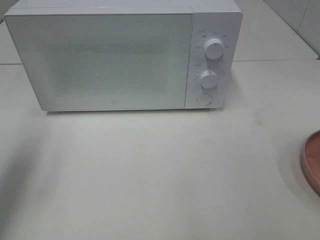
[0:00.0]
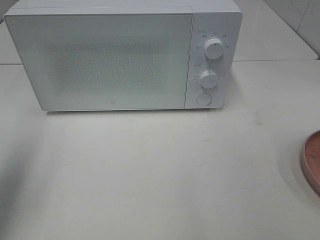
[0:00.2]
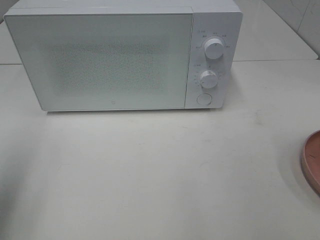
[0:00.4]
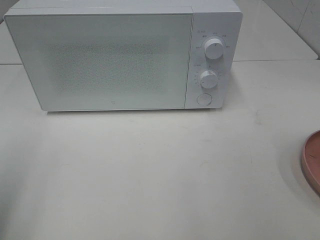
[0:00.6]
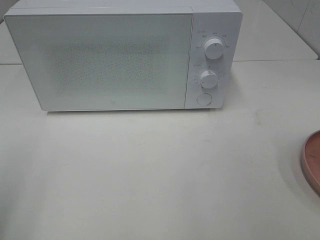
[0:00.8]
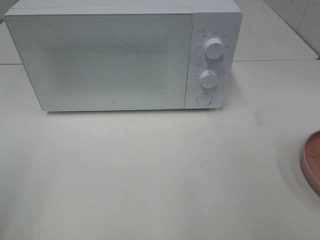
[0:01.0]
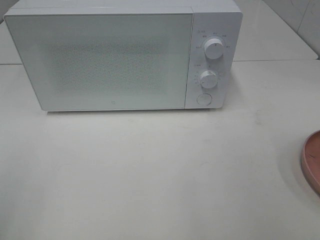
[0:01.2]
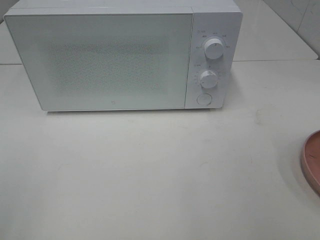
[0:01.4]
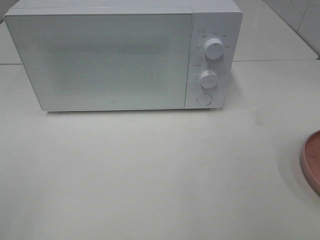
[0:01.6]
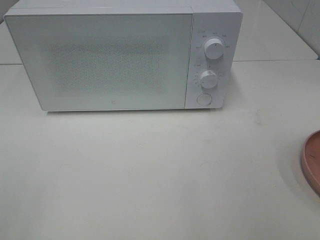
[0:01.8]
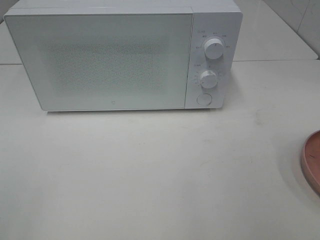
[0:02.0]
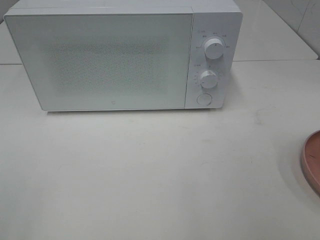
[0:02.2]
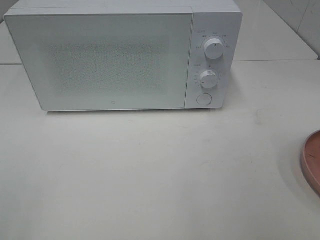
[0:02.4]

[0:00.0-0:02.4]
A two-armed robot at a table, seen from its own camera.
Task of the whole recording: Heat the burger.
0.0 to 1.2 s: The left gripper moves backward, roughly 20 cm.

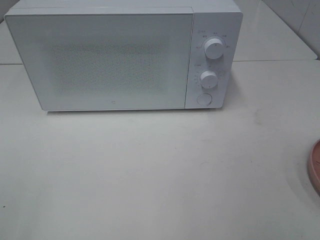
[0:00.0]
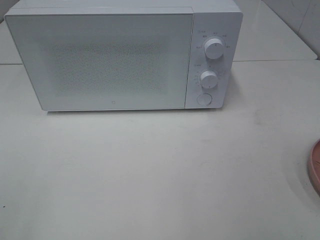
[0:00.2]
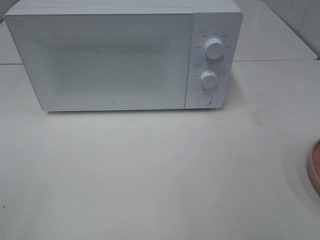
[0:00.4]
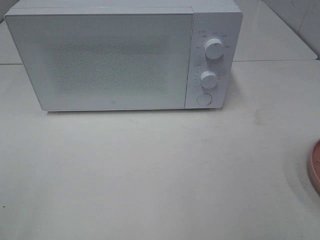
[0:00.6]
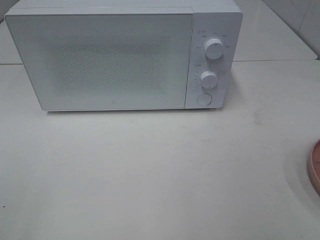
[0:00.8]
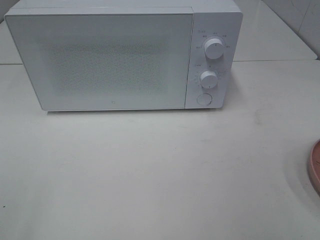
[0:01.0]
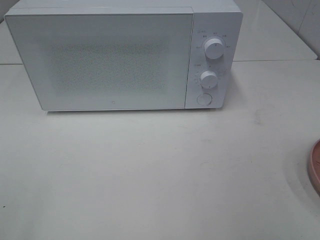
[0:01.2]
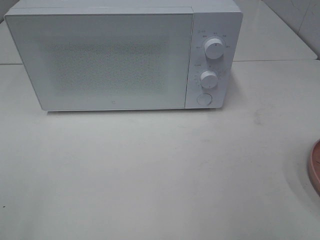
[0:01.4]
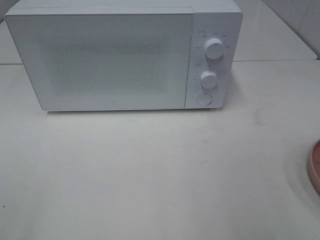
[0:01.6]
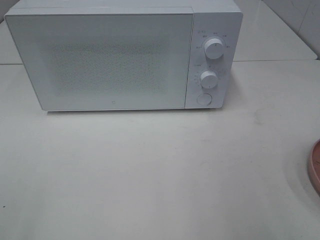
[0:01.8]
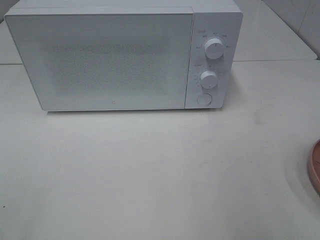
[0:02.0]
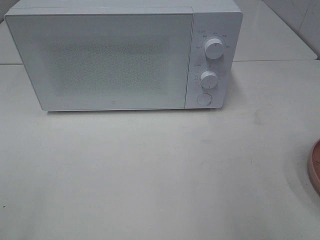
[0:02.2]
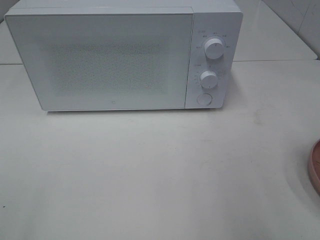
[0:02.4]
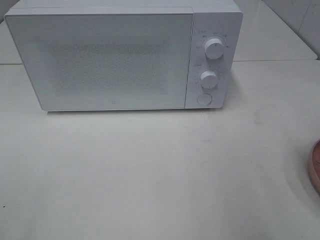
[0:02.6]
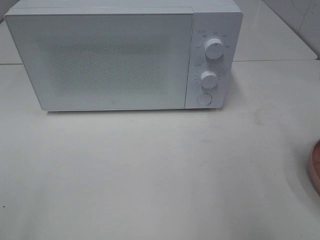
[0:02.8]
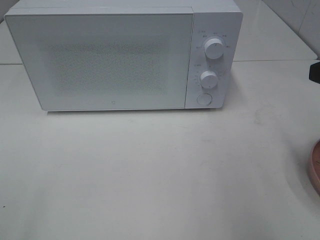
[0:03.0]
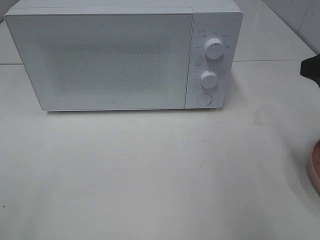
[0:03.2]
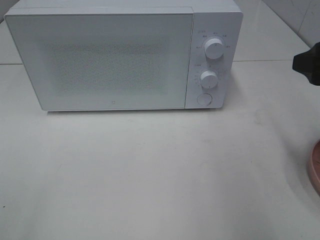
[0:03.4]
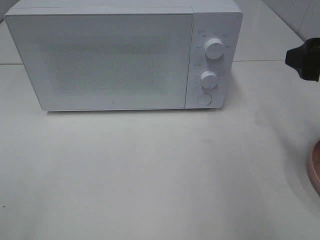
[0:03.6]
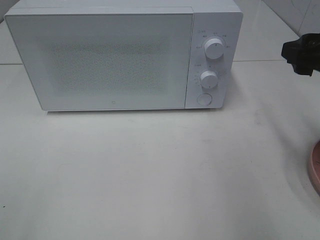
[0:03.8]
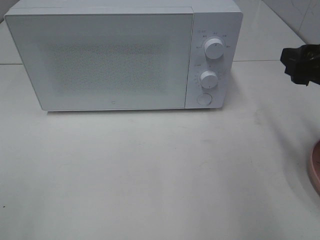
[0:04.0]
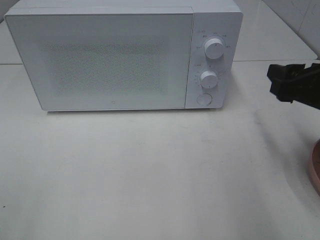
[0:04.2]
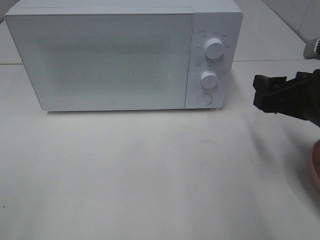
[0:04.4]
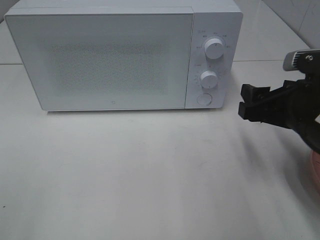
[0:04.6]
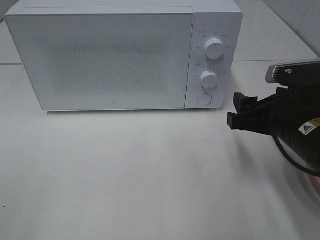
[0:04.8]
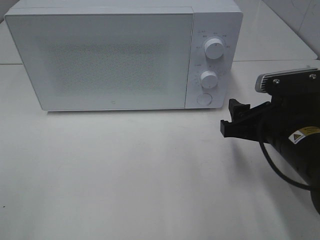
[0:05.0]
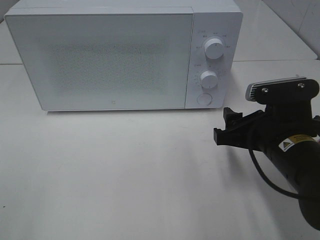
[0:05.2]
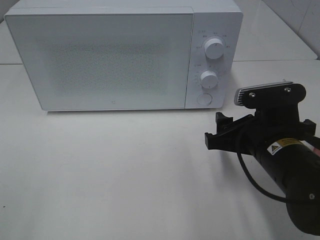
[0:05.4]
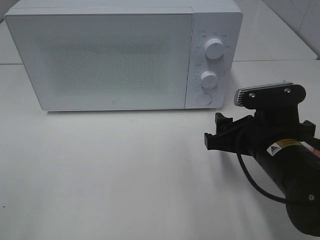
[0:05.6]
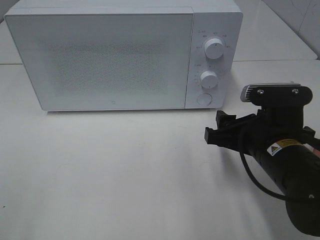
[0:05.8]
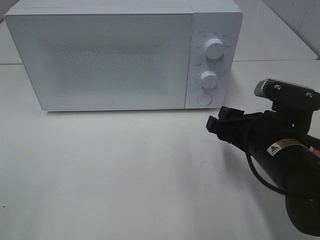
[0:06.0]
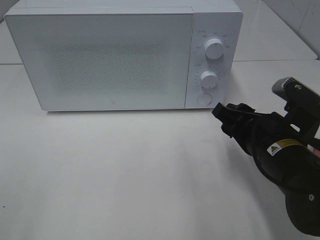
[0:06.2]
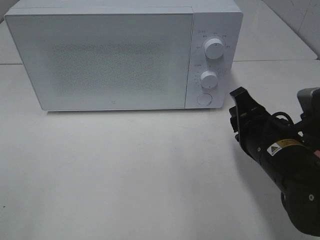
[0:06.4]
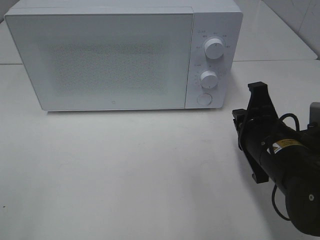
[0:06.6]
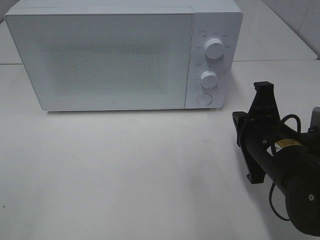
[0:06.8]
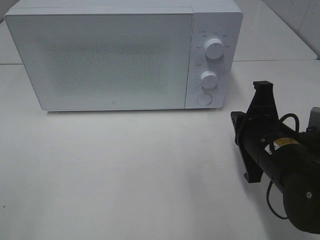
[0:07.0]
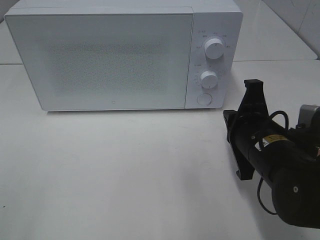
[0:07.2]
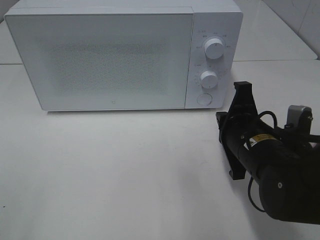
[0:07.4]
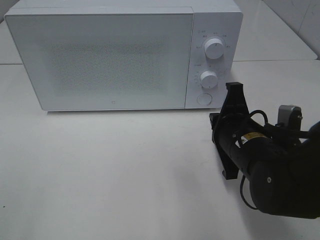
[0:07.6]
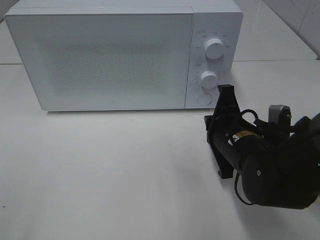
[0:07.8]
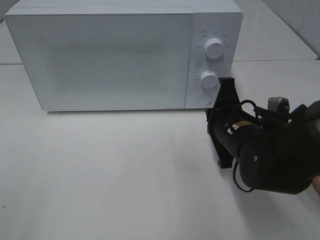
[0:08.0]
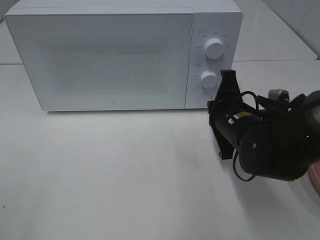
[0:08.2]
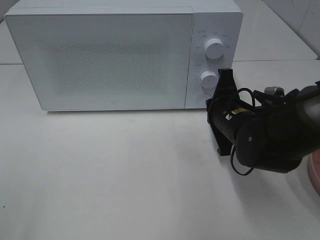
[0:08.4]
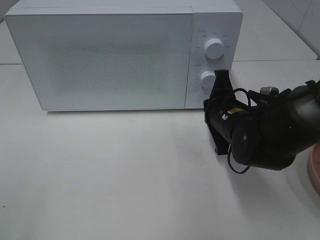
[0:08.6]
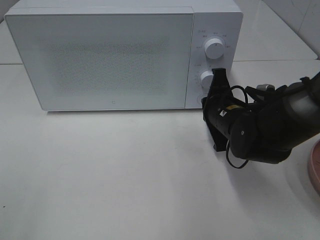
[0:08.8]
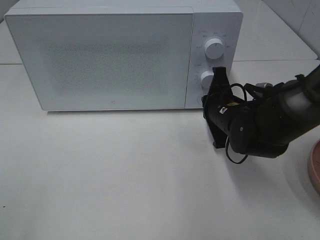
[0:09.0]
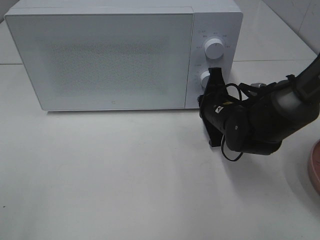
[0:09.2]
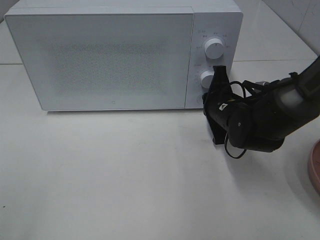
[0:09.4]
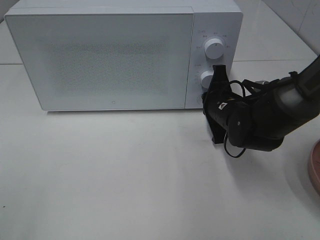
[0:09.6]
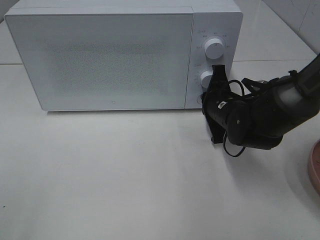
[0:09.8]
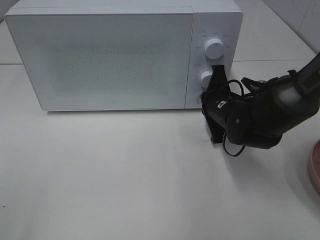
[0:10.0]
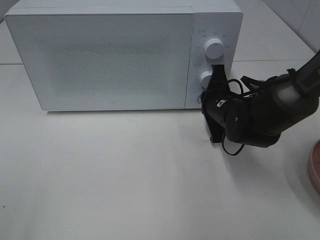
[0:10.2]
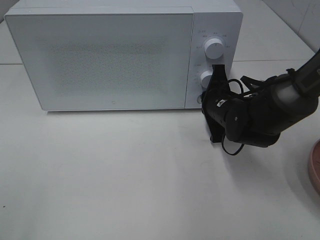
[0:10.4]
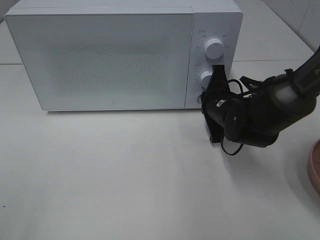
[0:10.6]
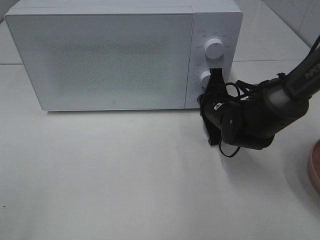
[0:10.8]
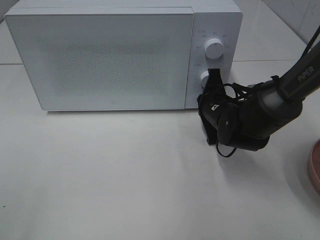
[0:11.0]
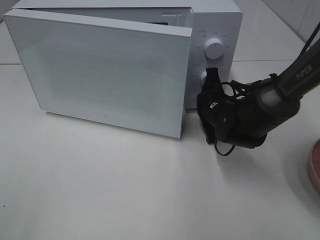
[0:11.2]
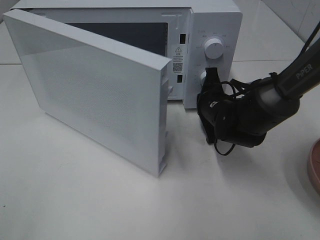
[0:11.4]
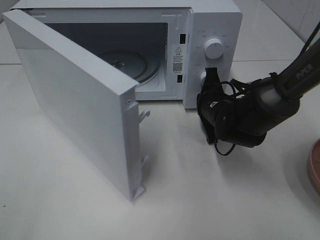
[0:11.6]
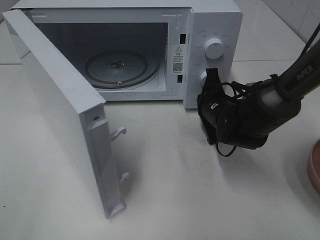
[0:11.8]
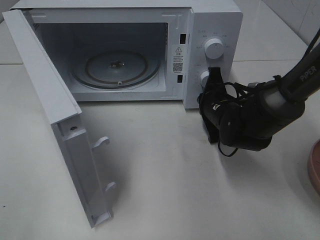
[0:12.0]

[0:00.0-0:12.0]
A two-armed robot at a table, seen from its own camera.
Task of the whole recording: Heat the burger.
3.0 to 4.4 s: The right gripper travels downward by approximately 10 cm.
4.4 to 6.0 s: The right gripper is displaced to the left and downward by about 10 cm.
6.0 to 7.6 s: The right gripper closes.
7.6 to 9.0 s: The right gripper goes about 10 cm forward.
9.0 to 10.4 s: There are only small adjustments of the grippers.

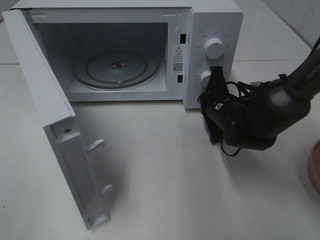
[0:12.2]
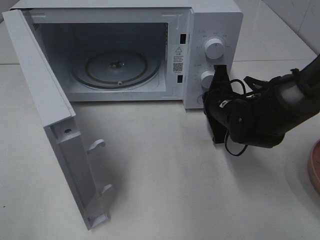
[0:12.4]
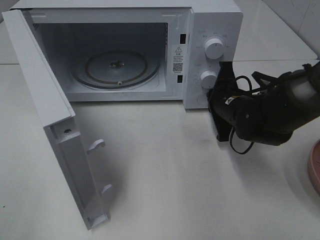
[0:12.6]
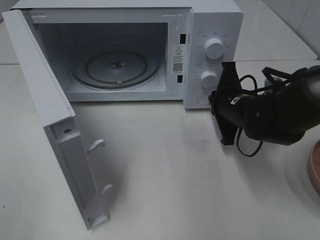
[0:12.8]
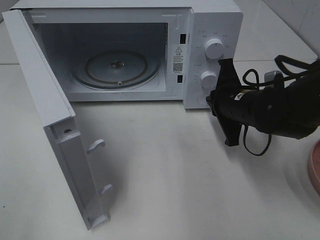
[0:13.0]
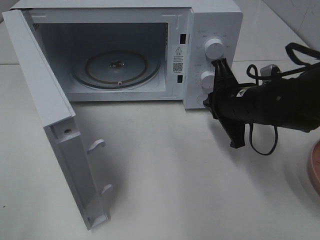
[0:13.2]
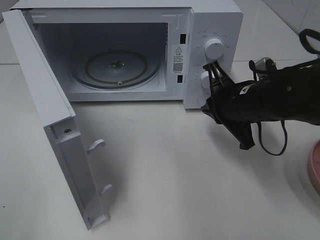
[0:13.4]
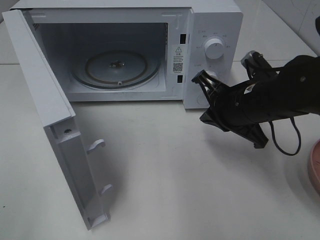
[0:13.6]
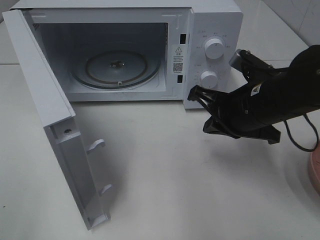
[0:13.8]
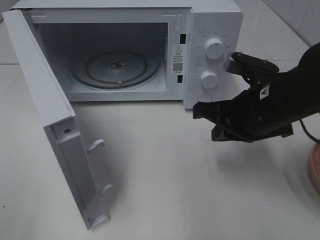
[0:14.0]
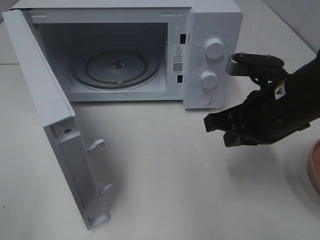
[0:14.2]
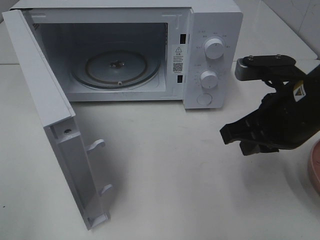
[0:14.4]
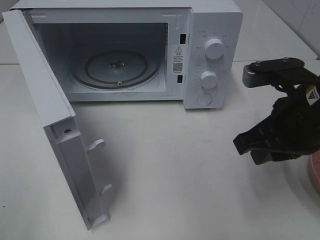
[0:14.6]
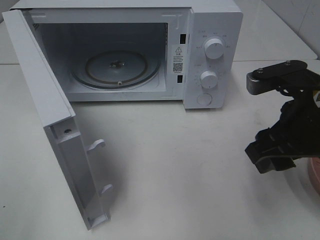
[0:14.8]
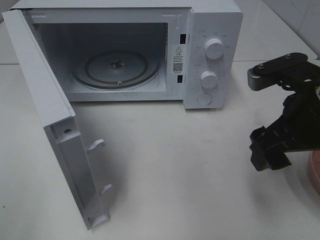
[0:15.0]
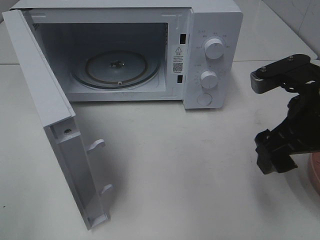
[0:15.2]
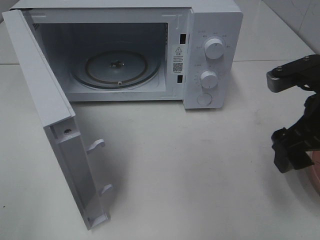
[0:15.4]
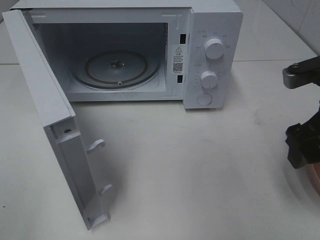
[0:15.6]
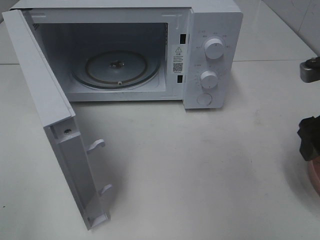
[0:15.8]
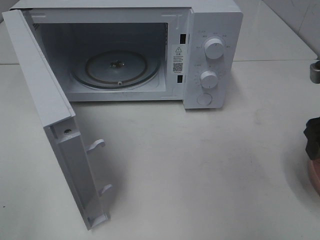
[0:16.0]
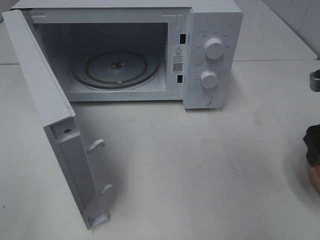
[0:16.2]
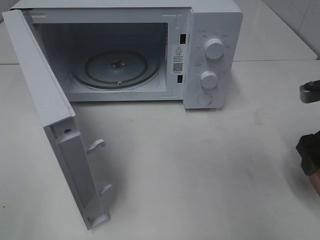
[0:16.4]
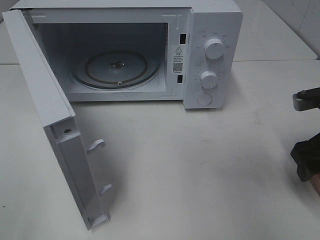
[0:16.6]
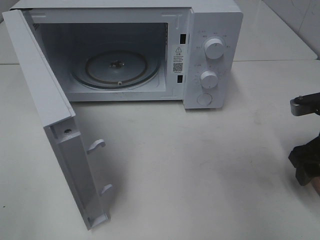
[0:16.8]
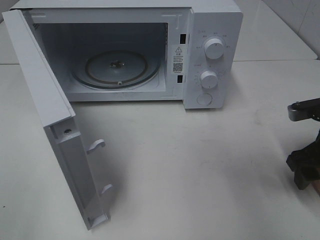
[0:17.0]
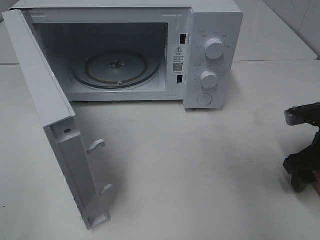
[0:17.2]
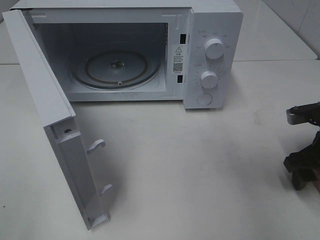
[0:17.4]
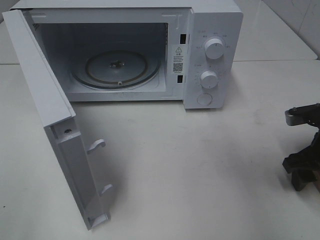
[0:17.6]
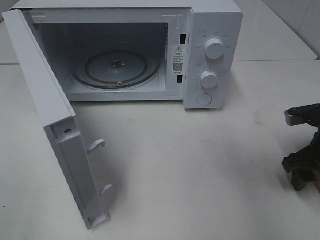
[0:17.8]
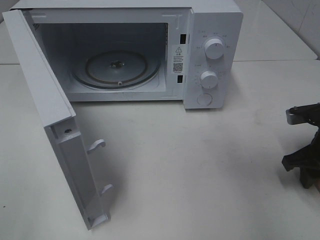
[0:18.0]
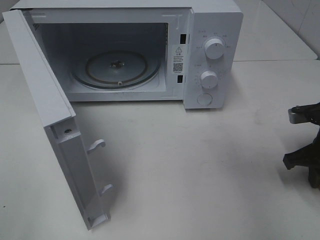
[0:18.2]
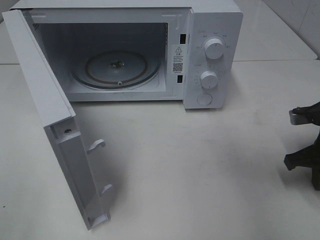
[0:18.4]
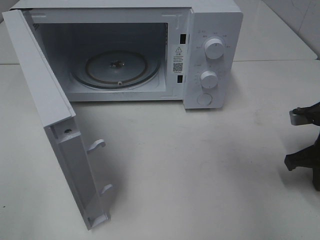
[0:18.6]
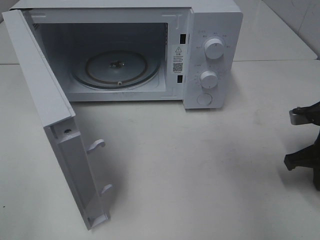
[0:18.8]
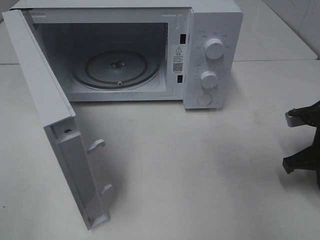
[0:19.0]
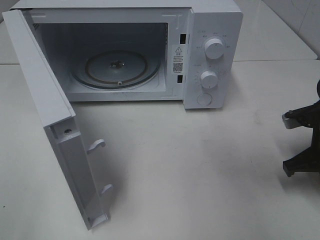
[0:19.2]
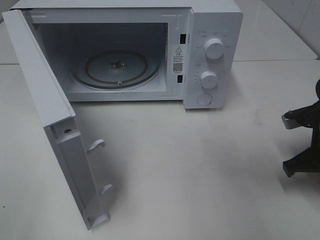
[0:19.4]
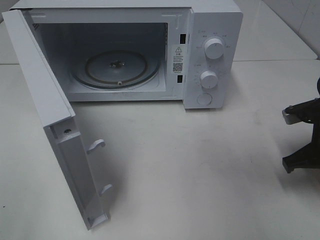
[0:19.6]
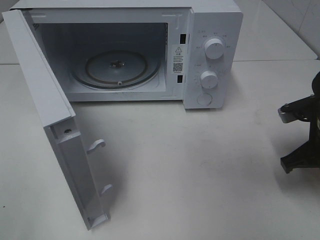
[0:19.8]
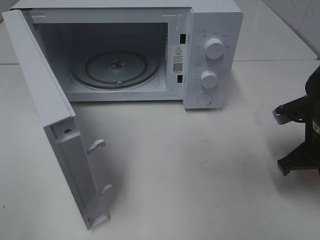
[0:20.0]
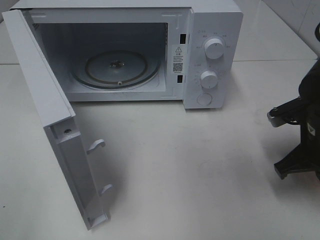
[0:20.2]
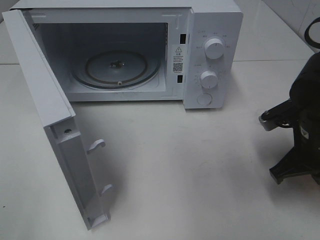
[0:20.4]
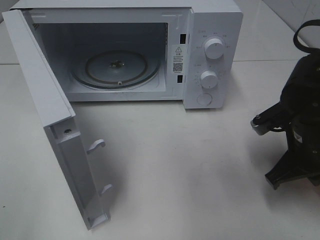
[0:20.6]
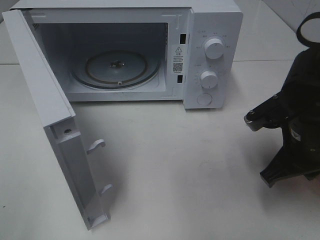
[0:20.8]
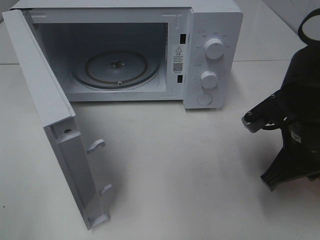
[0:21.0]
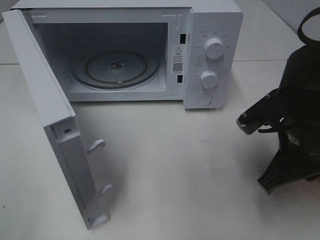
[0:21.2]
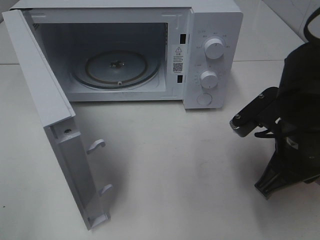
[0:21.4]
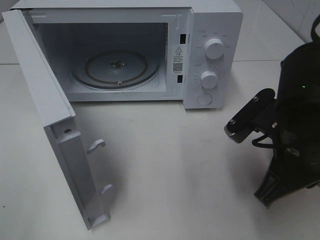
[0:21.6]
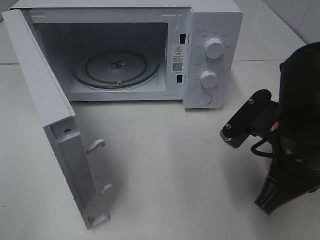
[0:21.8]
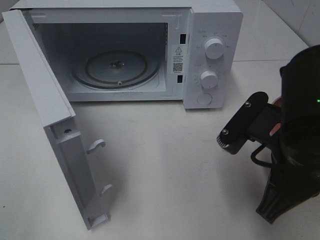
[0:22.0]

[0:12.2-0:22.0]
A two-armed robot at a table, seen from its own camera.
Task of the whole recording: Heat the burger.
Step, 13.2 to 19.2 s: Right hand: grab the plate with the hamburger.
12.2 to 13.6 s: The right gripper shifts approximately 10 cm upward and backward.
13.6 to 15.0 s: The right gripper goes about 10 cm backward and upward, and opens.
15.0 to 16.4 s: The right gripper travels to the right by about 10 cm.
16.4 to 17.8 s: The right gripper is displaced downward by some 5 cm.
17.8 to 19.2 s: The right gripper closes.
19.2 to 20.6 s: The right gripper moves to the left, some 5 cm.
20.6 to 22.0 s: The right gripper moves backward, to the left and upward, approximately 10 cm.
